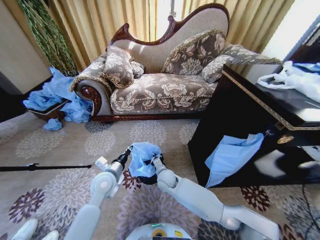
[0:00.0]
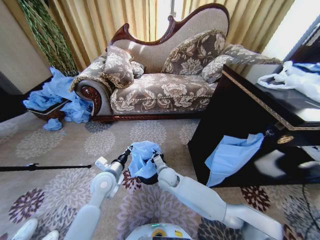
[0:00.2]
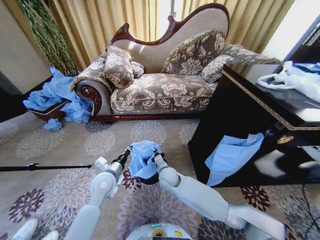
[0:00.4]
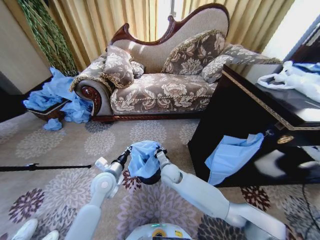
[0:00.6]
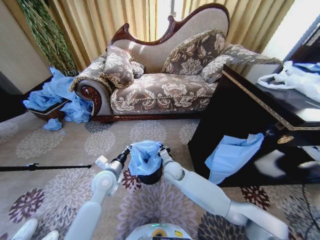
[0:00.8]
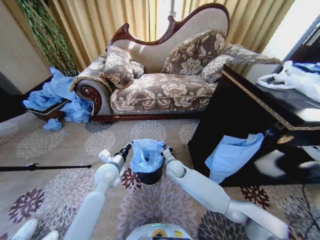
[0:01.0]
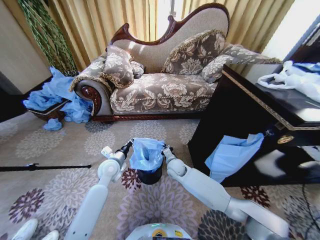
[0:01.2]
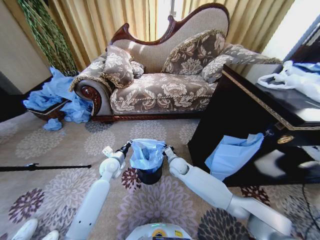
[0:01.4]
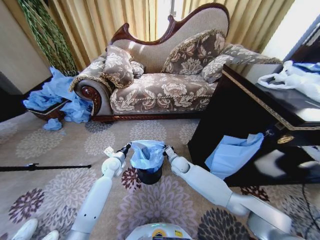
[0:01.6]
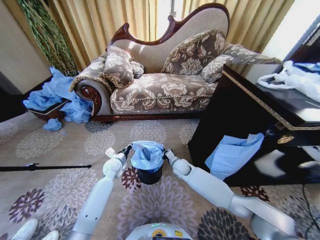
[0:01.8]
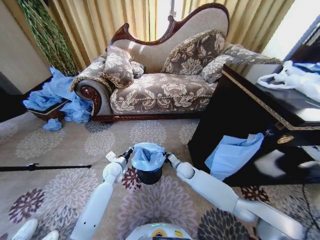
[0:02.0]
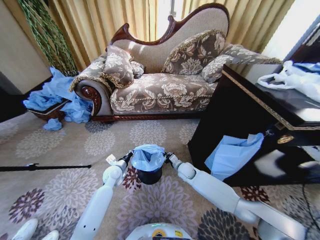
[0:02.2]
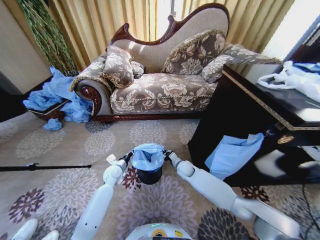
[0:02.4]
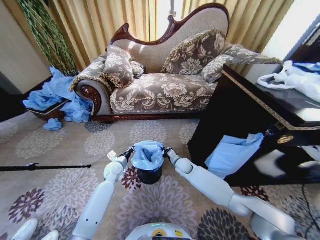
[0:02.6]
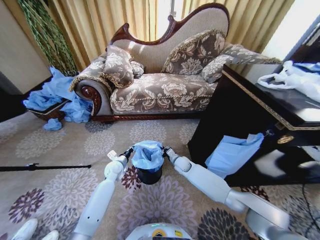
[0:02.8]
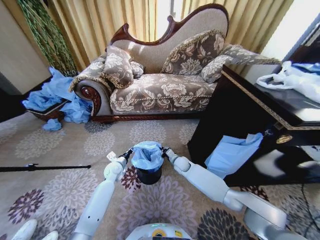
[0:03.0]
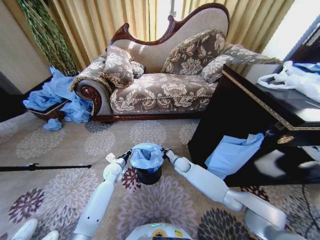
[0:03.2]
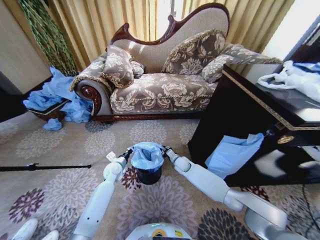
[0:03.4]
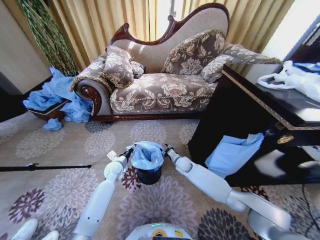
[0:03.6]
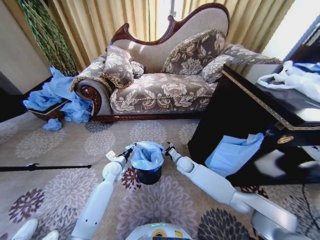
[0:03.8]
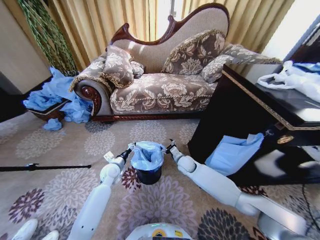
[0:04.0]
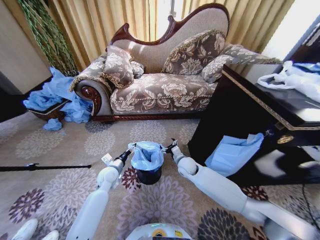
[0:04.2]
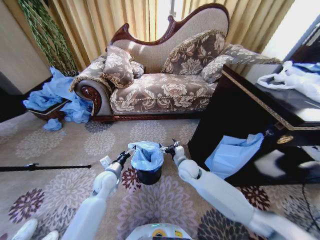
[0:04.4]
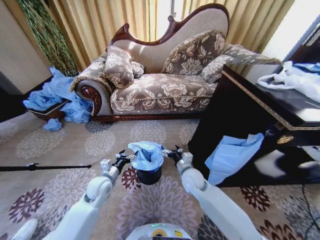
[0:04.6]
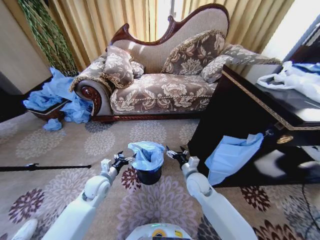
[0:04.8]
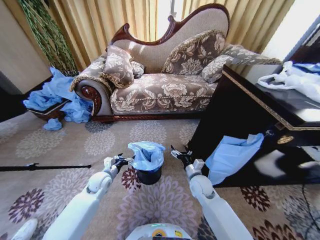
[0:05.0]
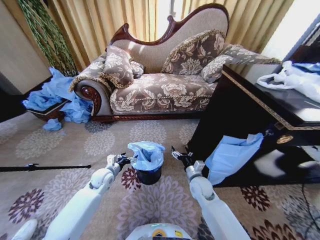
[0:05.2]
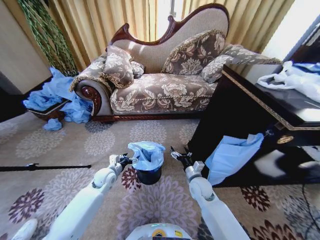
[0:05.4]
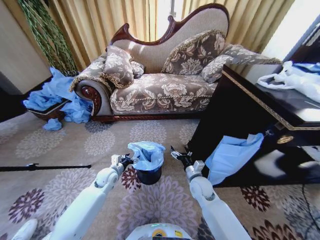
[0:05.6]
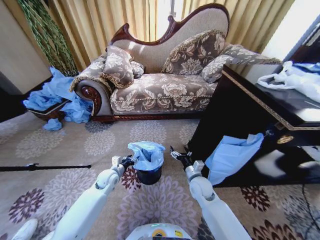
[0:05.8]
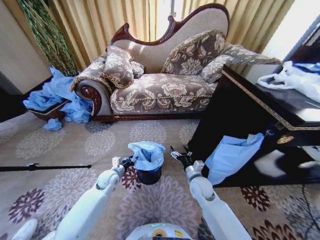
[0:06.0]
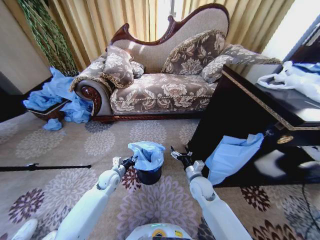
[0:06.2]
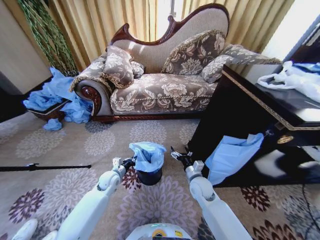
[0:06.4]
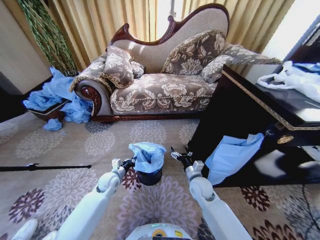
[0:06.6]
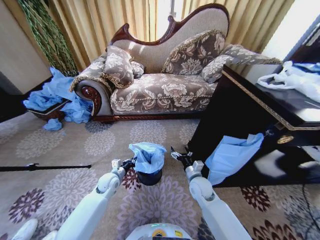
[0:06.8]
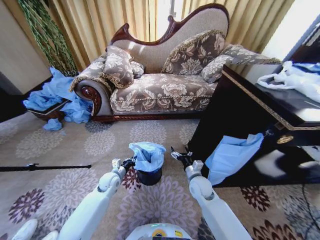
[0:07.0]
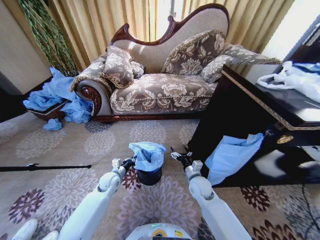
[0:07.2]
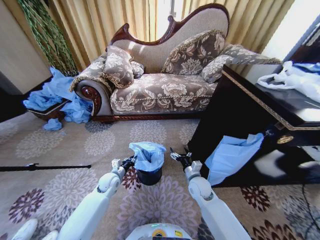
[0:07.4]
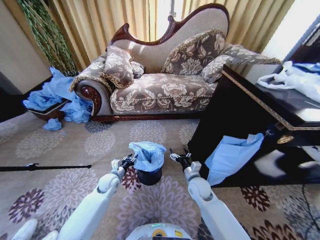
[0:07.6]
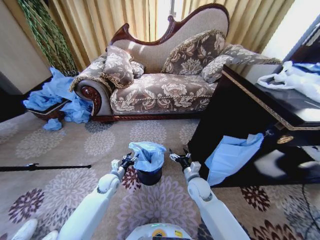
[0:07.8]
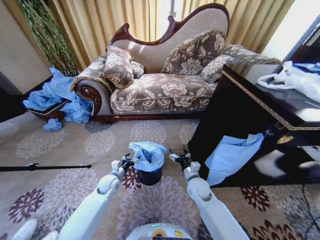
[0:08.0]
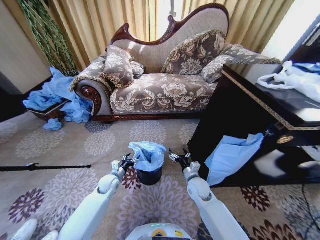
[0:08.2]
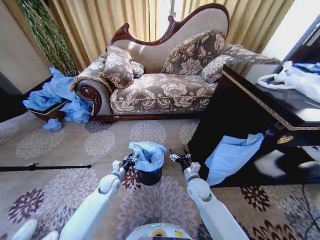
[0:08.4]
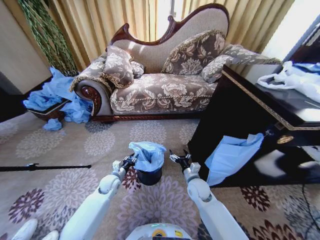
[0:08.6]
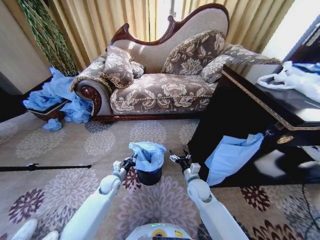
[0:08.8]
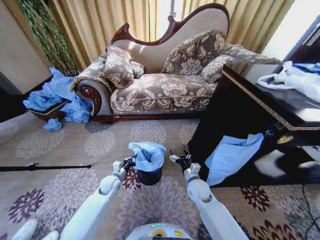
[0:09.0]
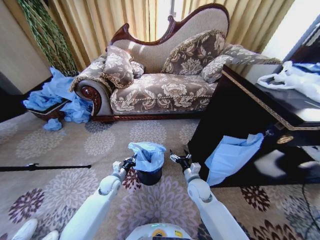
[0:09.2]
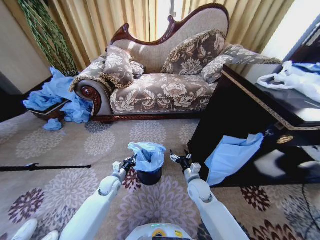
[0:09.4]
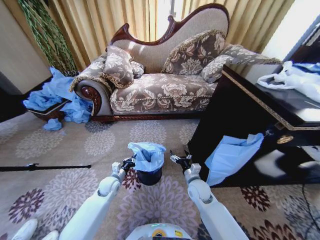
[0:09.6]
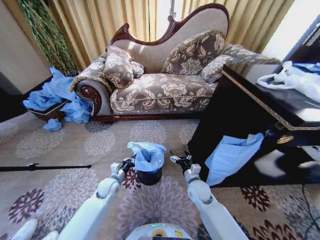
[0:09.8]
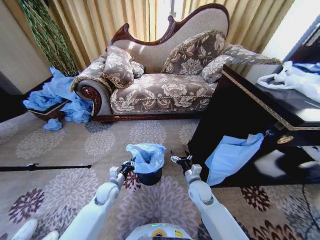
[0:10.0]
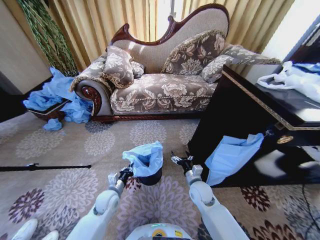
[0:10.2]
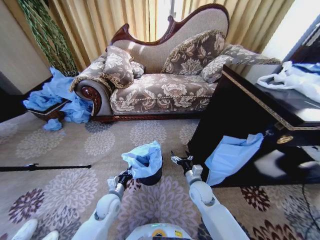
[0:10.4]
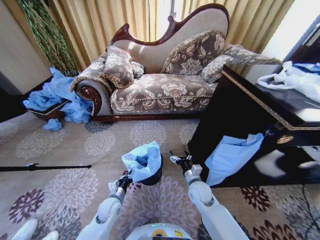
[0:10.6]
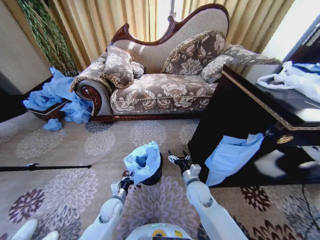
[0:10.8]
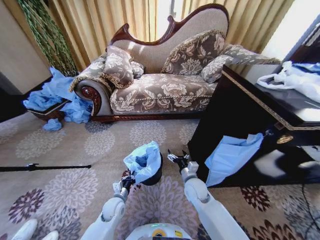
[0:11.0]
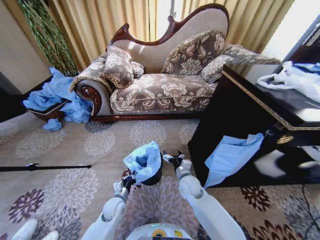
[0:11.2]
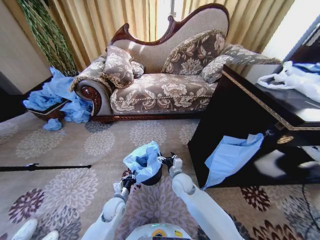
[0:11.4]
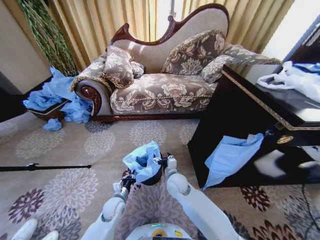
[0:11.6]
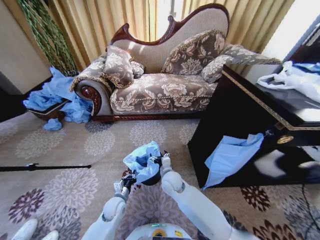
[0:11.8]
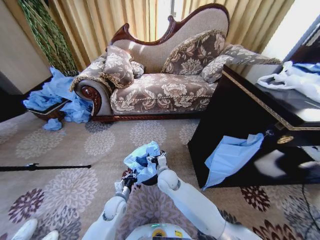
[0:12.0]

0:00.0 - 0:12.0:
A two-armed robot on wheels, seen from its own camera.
Task of the whole recording: Place a garbage bag over the trash bin.
0:00.0 - 0:01.6: The right gripper shifts roughly 10 cm forward and to the right, while the left gripper heads forward and downward, covering roughly 15 cm.
0:01.6 - 0:03.0: The right gripper moves some 5 cm.
0:03.0 - 0:04.4: The left gripper is displaced backward and upward by about 10 cm, and opens. The right gripper travels upward and backward by about 15 cm, and opens.
0:04.4 - 0:06.0: The left gripper shifts by roughly 5 cm, and closes. The right gripper travels backward and to the right by approximately 10 cm.
0:06.0 - 0:07.6: The left gripper closes, then reopens.
0:07.6 - 0:09.0: The left gripper closes its fingers.
0:09.0 - 0:10.4: The left gripper moves backward, about 10 cm.
0:10.4 - 0:12.0: The right gripper moves to the left, some 15 cm.

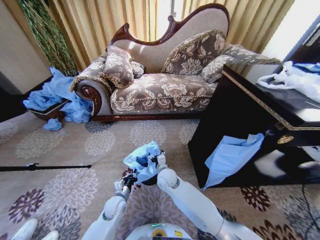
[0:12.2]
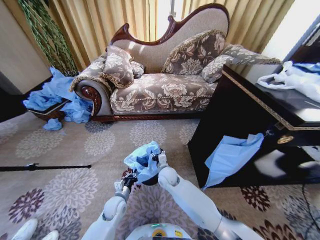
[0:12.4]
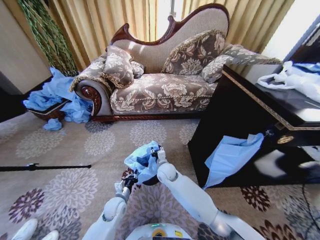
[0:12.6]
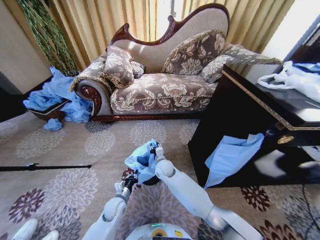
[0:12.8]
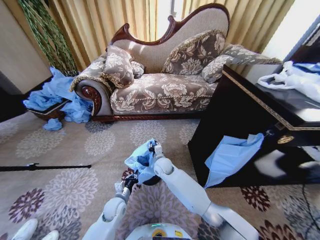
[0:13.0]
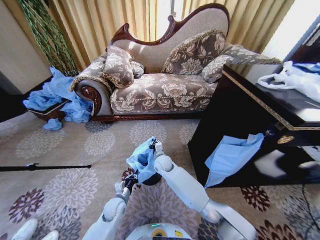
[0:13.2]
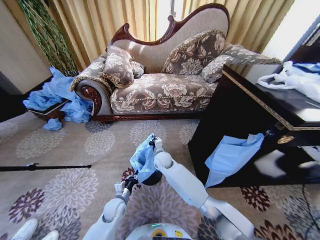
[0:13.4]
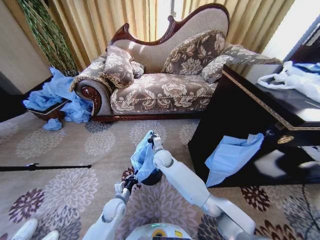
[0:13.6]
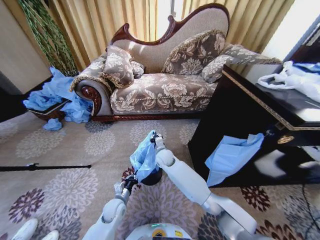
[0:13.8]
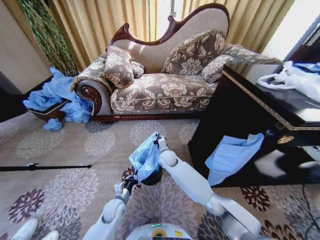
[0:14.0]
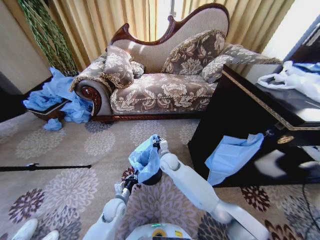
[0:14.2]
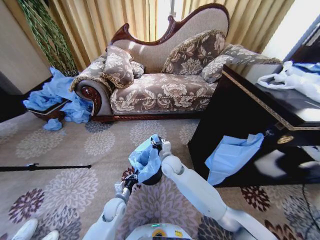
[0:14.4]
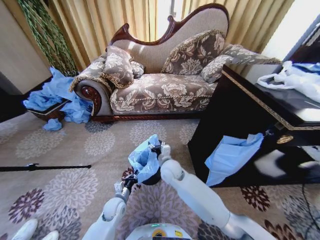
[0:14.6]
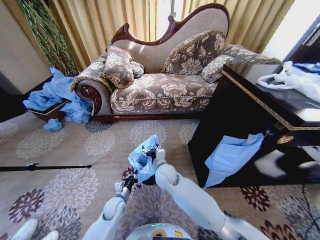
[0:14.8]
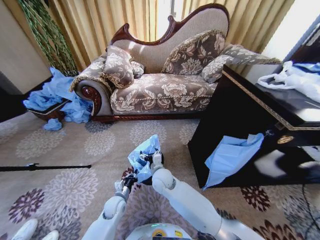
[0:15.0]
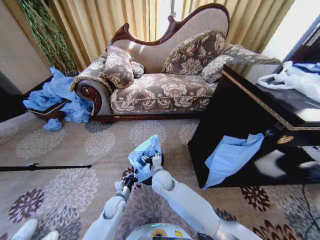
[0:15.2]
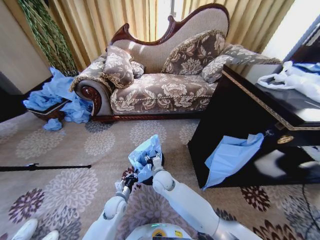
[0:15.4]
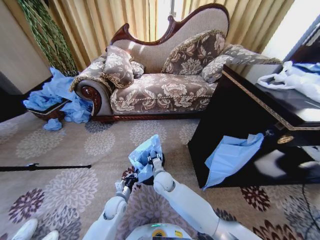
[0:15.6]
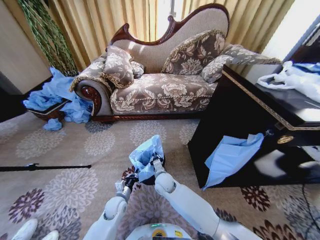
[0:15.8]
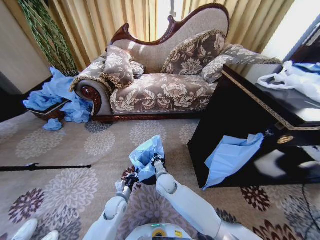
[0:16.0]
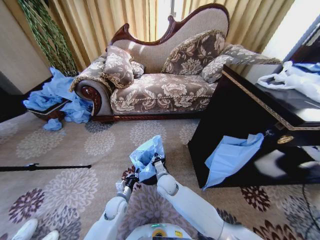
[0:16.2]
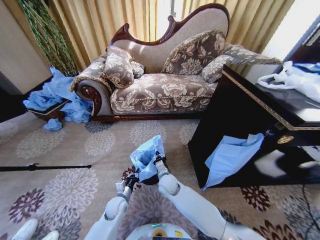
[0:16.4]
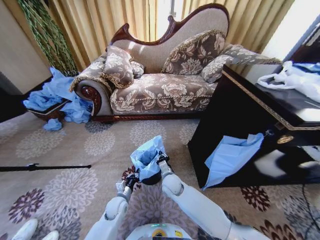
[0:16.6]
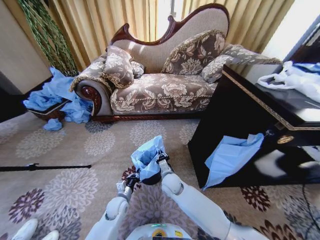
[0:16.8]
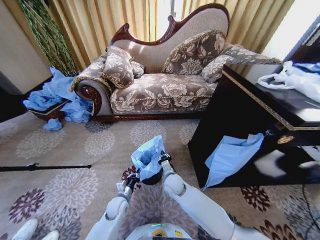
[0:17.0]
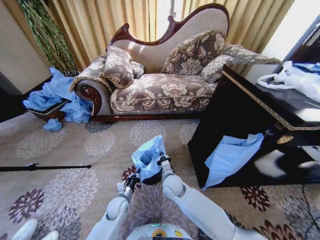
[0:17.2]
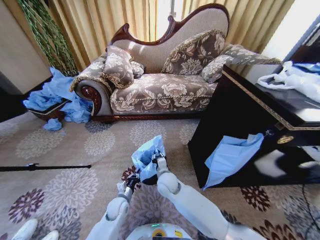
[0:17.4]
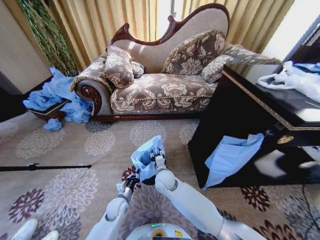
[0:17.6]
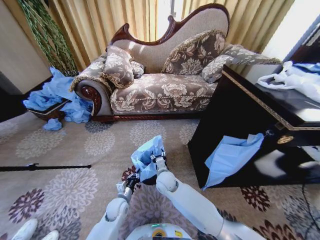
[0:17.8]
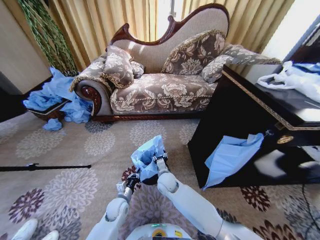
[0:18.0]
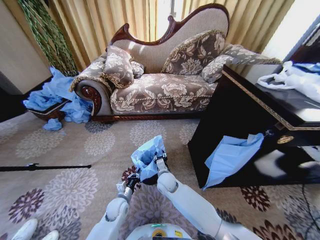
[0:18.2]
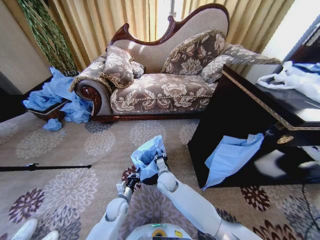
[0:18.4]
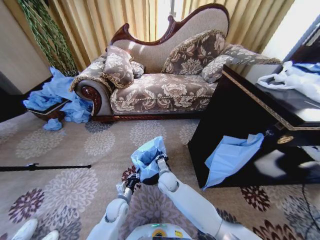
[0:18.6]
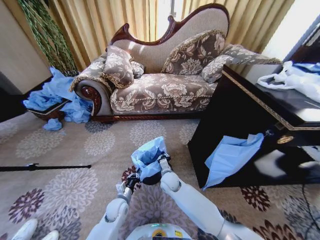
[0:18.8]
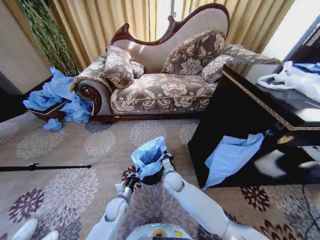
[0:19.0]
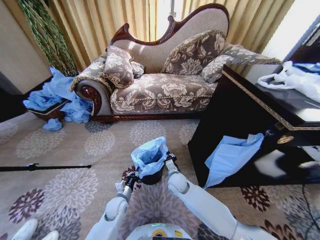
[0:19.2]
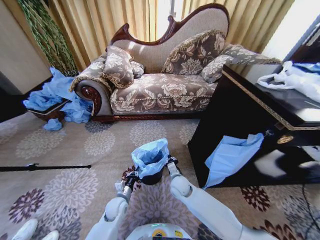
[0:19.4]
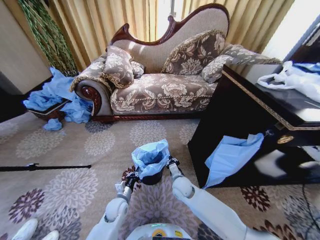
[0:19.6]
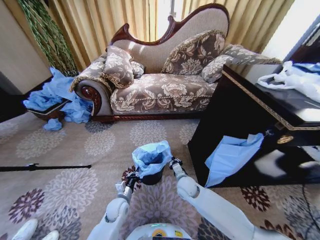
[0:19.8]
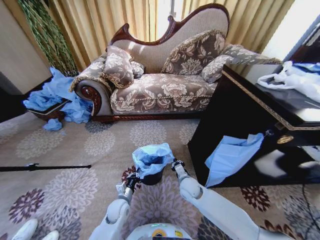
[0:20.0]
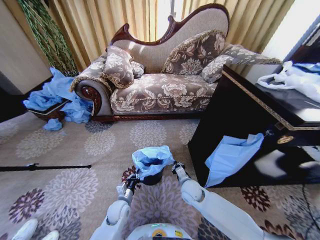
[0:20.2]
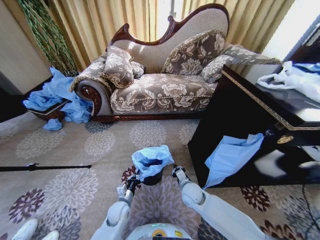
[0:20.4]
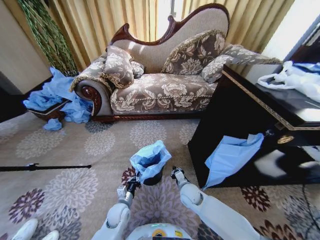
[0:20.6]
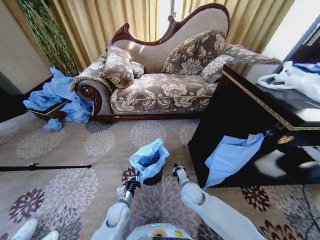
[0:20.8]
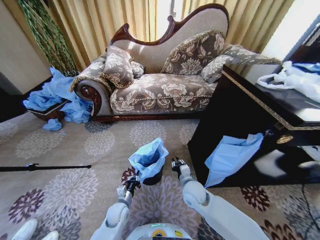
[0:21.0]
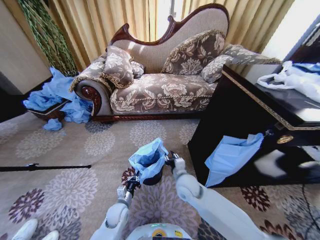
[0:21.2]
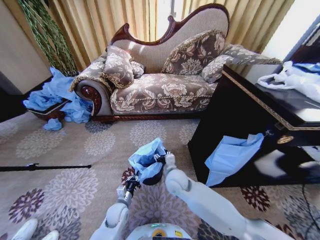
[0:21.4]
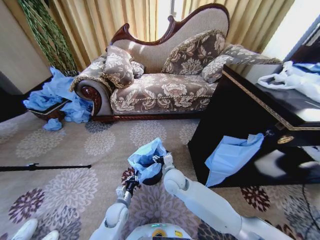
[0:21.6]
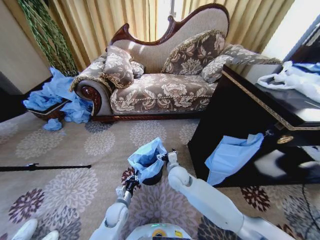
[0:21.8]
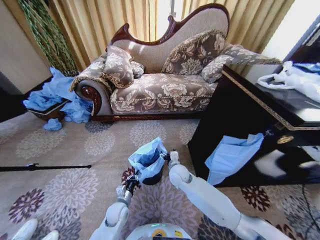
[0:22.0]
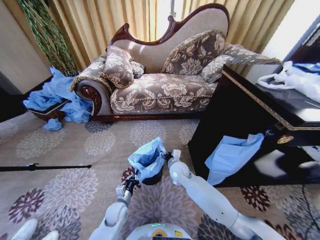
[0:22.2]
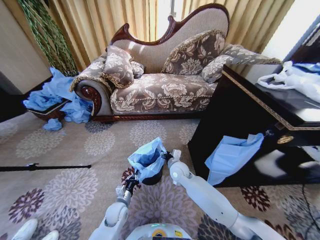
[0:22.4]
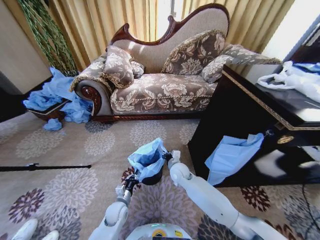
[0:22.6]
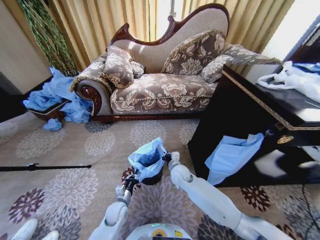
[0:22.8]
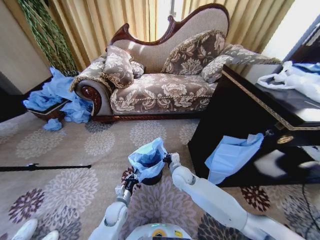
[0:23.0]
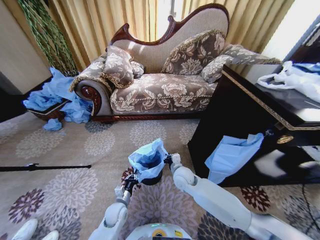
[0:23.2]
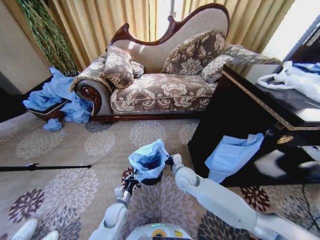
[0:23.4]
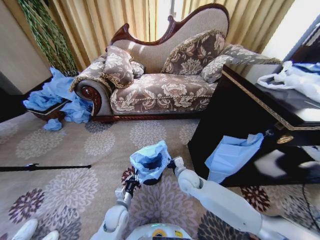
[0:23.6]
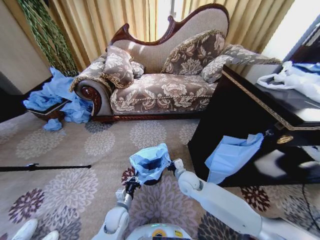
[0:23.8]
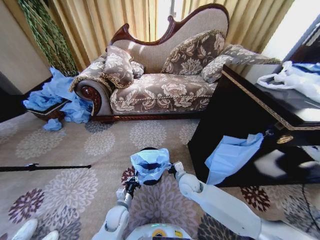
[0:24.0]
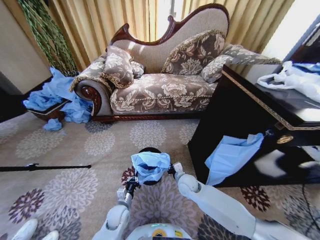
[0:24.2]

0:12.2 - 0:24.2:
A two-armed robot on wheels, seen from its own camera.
Task of the whole recording: Place a garbage bag over the trash bin.
0:12.2 - 0:13.8: The right gripper is displaced forward by about 10 cm, and closes its fingers.
0:13.8 - 0:15.2: The right gripper is displaced backward by approximately 10 cm, and opens.
0:15.2 - 0:16.6: The right gripper changes place by about 5 cm, and closes up.
0:16.6 - 0:18.2: The right gripper opens up.
0:18.2 - 0:19.8: The right gripper travels to the right by about 10 cm, and closes.
0:19.8 - 0:21.2: The right gripper is displaced upward by roughly 10 cm.
0:21.2 - 0:22.6: The right gripper goes some 10 cm forward, and opens, then closes again.
0:22.6 - 0:24.2: The right gripper moves roughly 5 cm.
